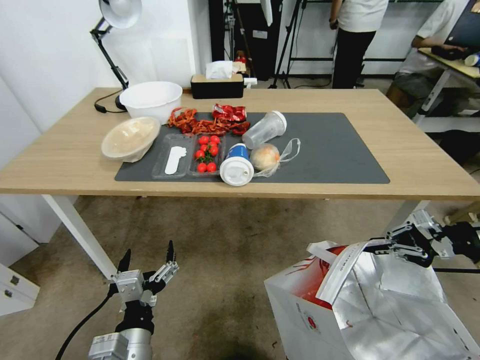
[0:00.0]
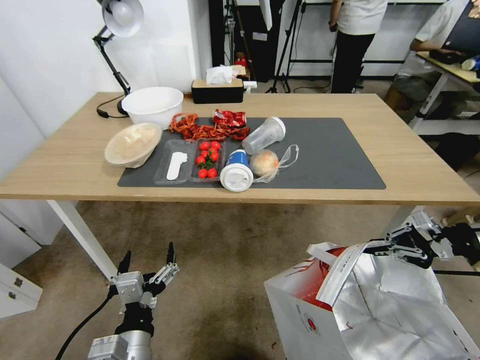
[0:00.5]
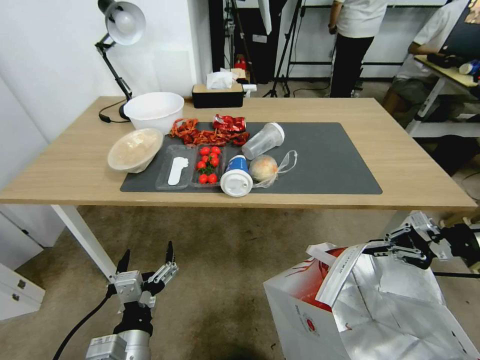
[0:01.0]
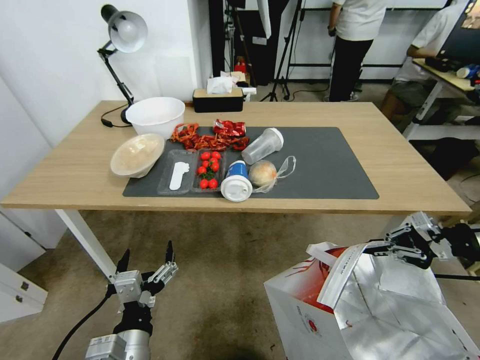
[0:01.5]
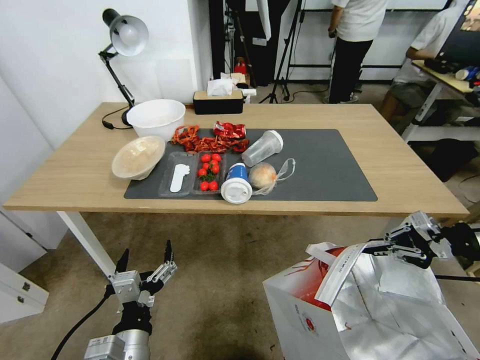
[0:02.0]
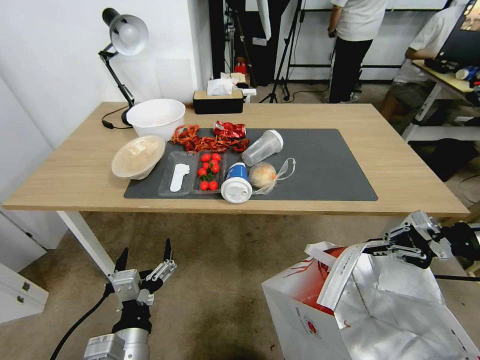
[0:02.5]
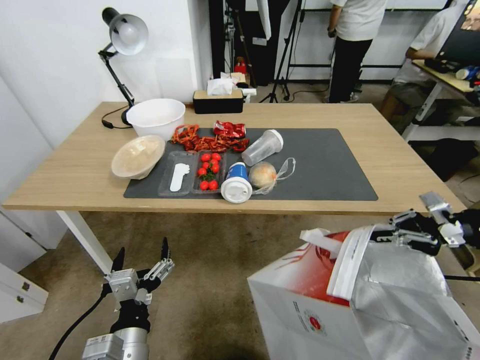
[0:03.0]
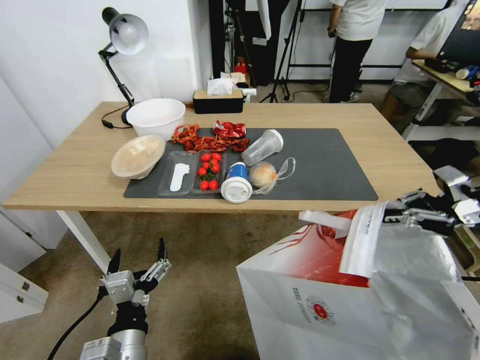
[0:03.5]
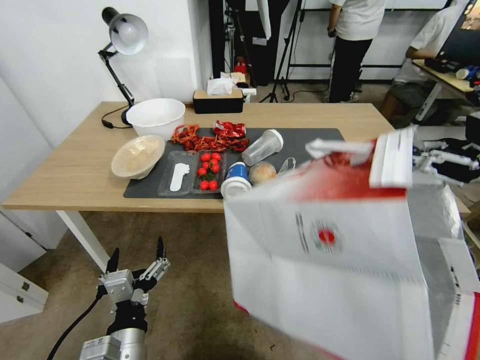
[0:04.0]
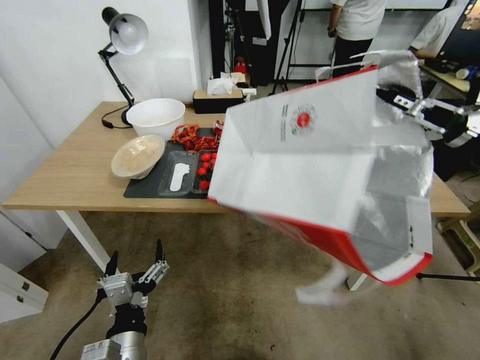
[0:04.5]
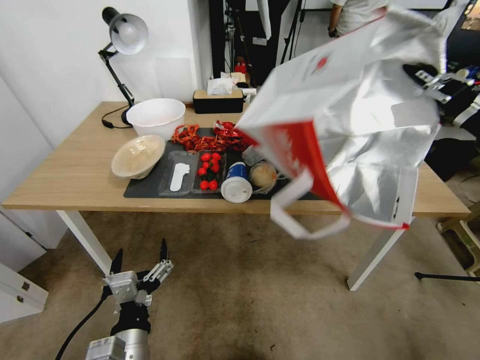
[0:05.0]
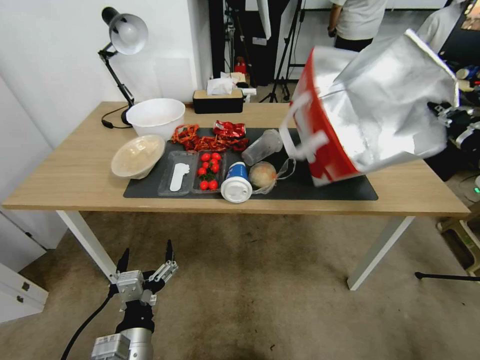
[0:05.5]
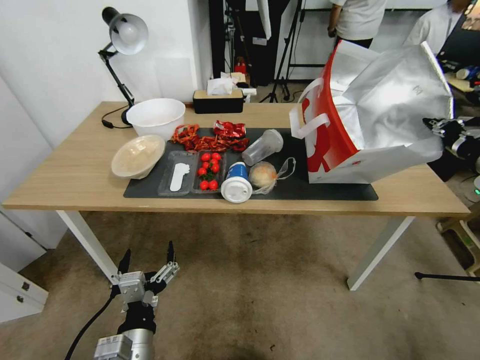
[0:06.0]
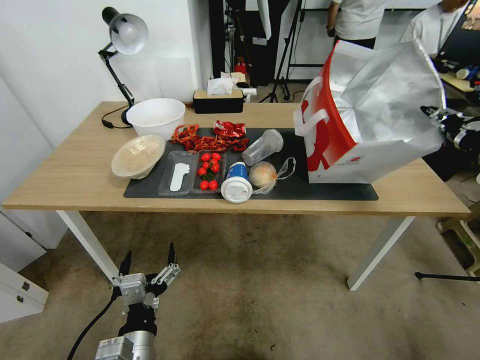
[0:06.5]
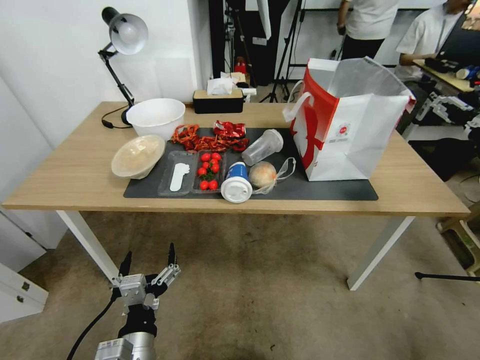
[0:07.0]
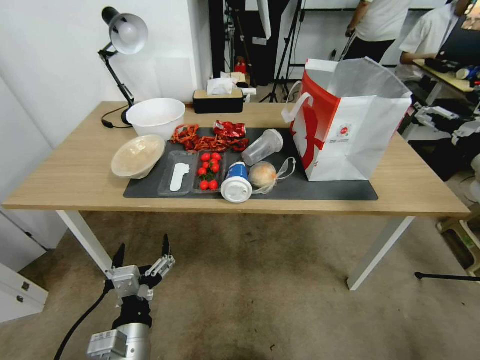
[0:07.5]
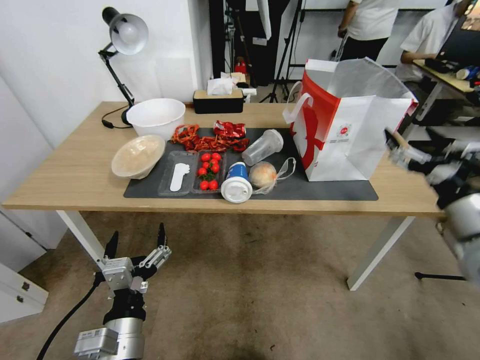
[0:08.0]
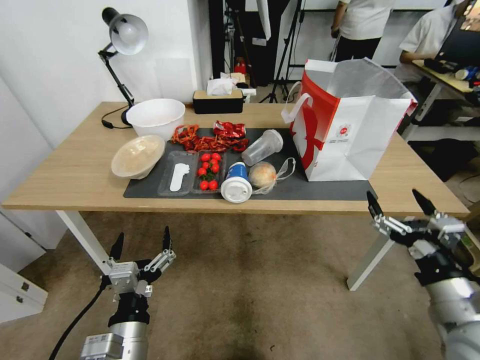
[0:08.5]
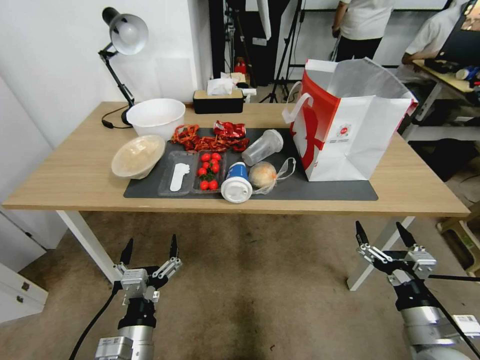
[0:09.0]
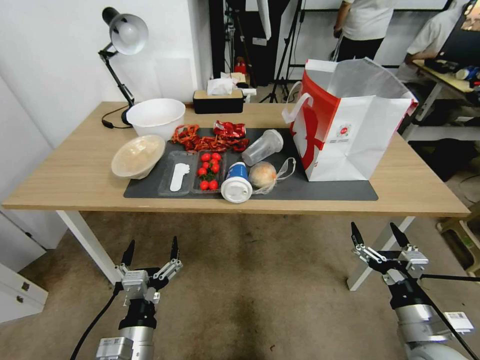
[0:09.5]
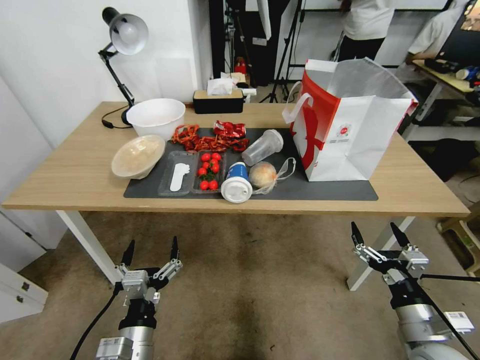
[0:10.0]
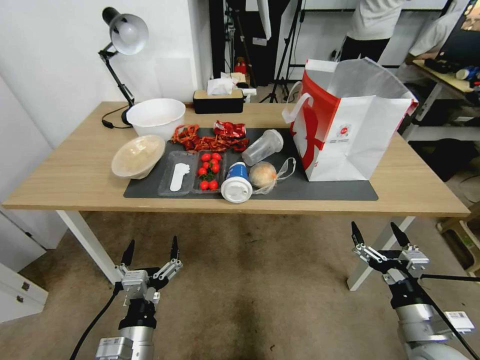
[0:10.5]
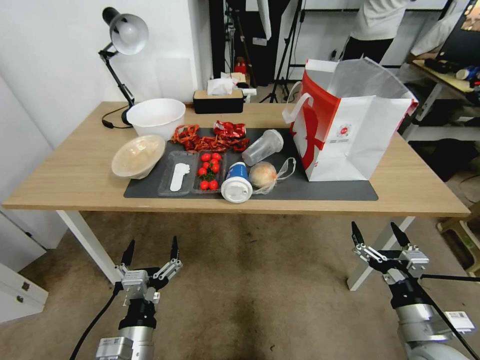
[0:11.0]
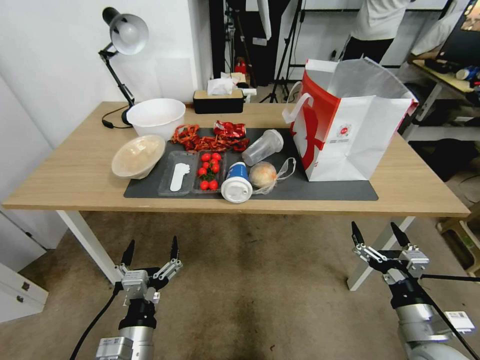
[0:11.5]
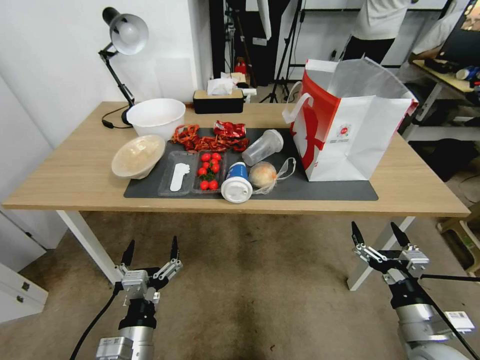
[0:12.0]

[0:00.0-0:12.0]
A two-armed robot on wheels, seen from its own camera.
Task of the whole recording: Pick up the food delivery bag from the floor and place it on the table.
0:02.0 to 0:04.0: The right gripper heads upward, covering about 10 cm.
0:04.0 to 0:06.0: The right gripper heads to the left, covering approximately 5 cm.
0:06.0 to 0:08.0: The right gripper travels downward by approximately 10 cm, and opens up.
0:08.0 to 0:10.0: The right gripper heads downward and backward, covering some 20 cm. Meanwhile the left gripper goes approximately 5 cm downward.
0:10.0 to 0:12.0: Neither gripper changes place.
